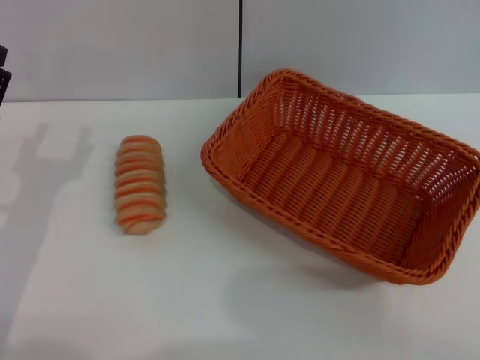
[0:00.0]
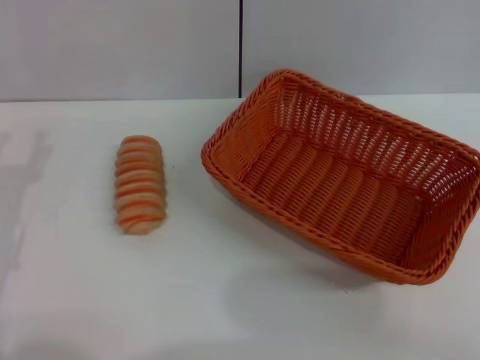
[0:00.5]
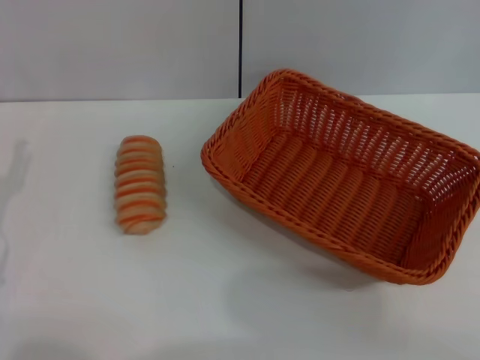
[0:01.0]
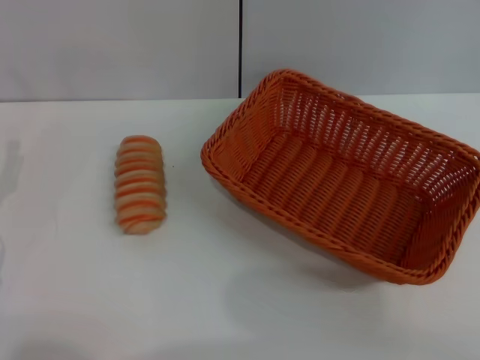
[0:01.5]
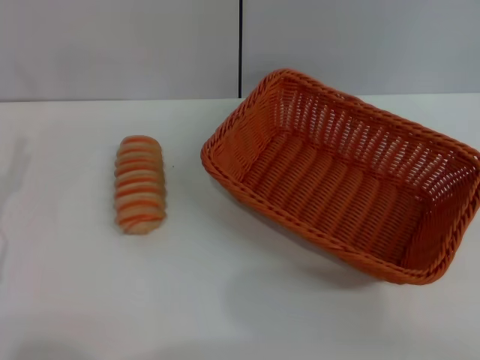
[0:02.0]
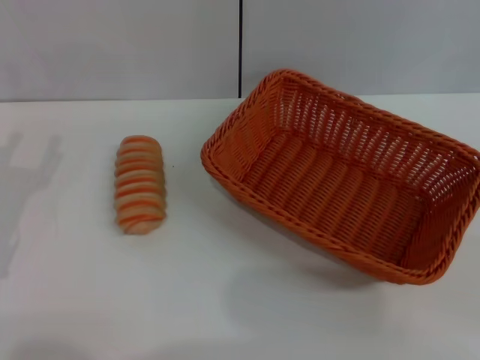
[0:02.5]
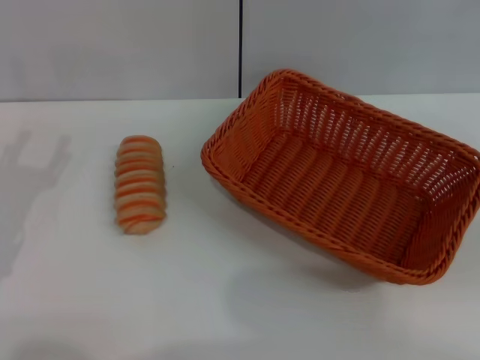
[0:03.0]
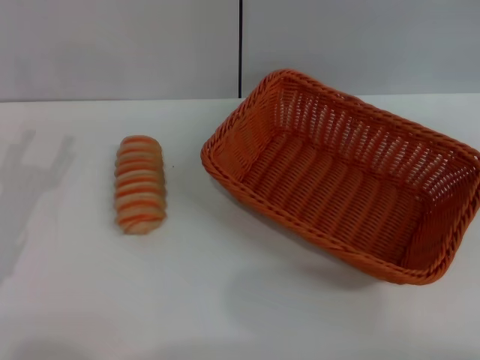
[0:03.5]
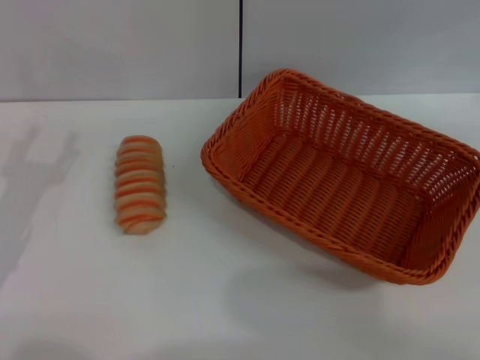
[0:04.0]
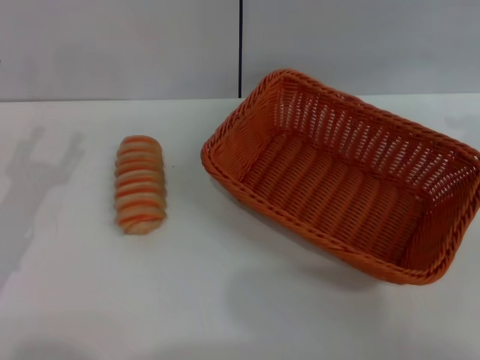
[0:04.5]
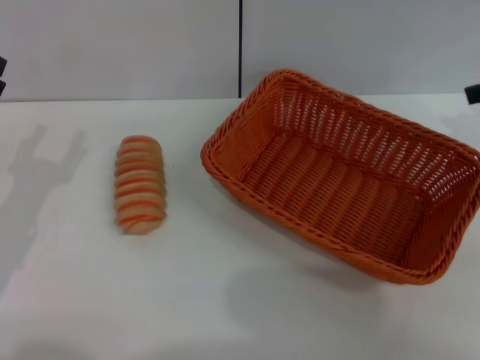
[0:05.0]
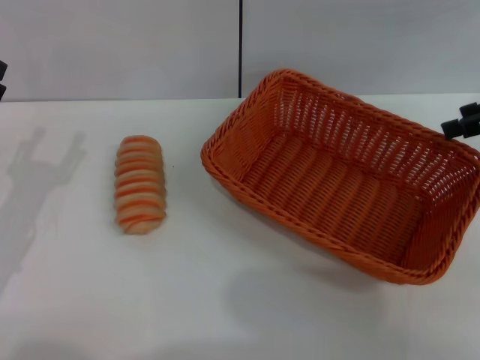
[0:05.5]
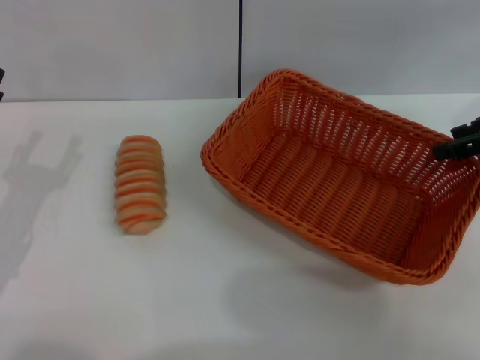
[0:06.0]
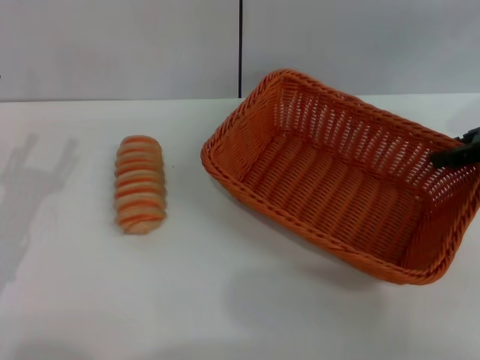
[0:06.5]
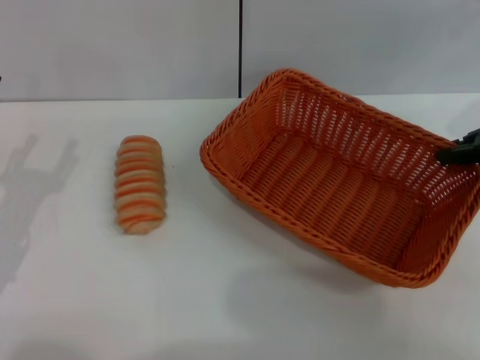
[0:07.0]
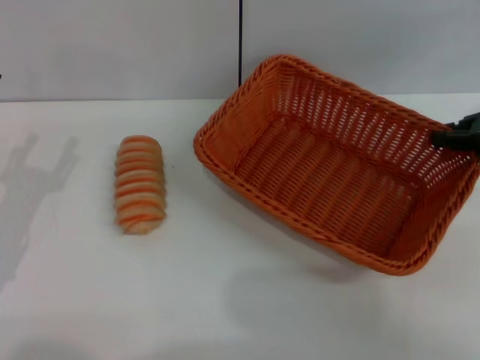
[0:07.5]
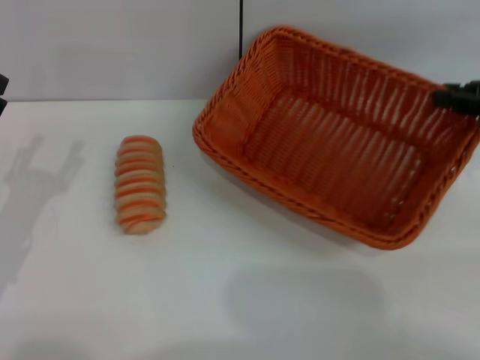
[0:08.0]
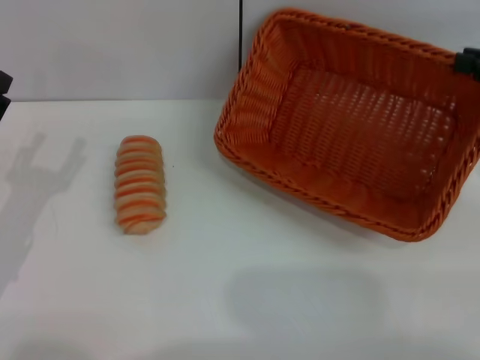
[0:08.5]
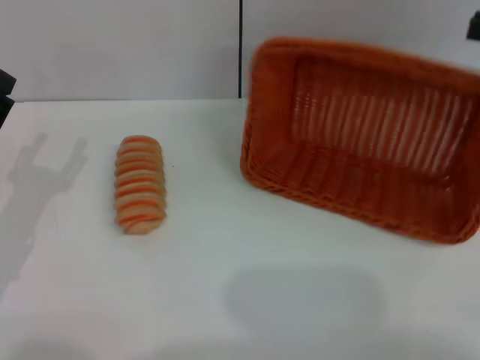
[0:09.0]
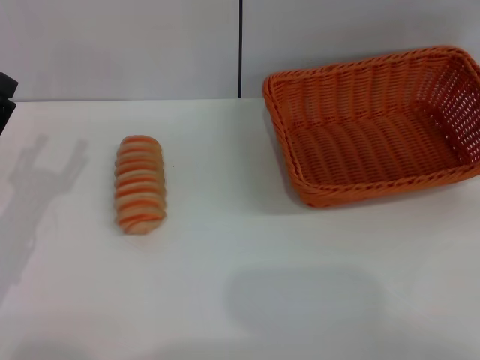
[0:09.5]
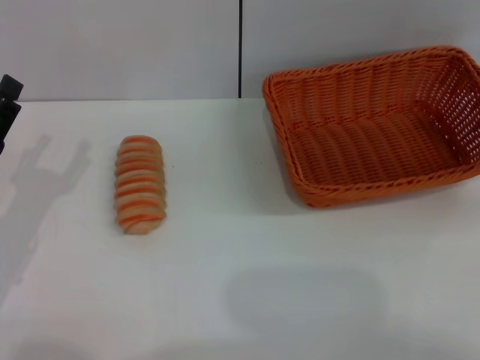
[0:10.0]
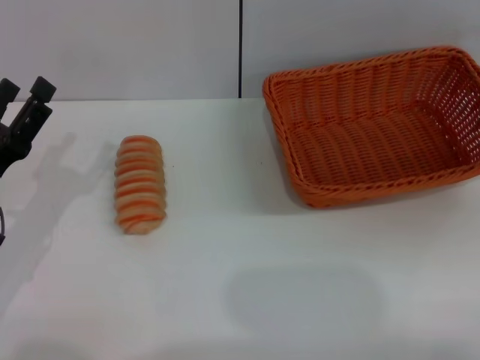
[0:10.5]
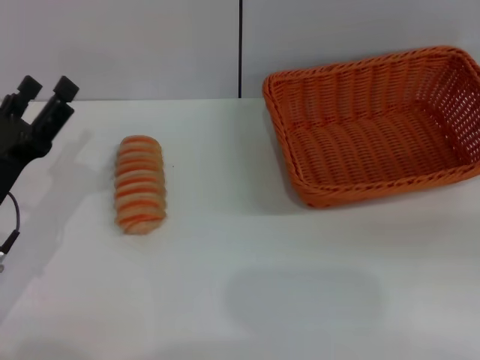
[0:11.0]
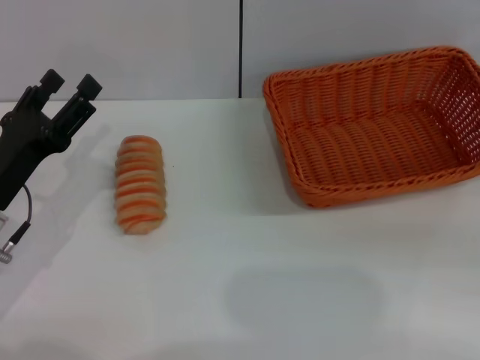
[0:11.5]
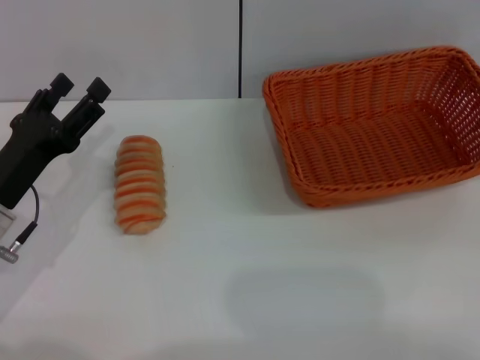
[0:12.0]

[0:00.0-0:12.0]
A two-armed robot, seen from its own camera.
Step, 0:00.0 to 0:08.0: Pick up the light basket with the right gripper.
0:04.0 to 0:06.0: The right gripper heads downward, to the left and forward, covering about 15 cm.
0:06.0 to 0:08.0: The right gripper closes up.
0:08.0 to 0:10.0: The right gripper goes approximately 5 cm upward.

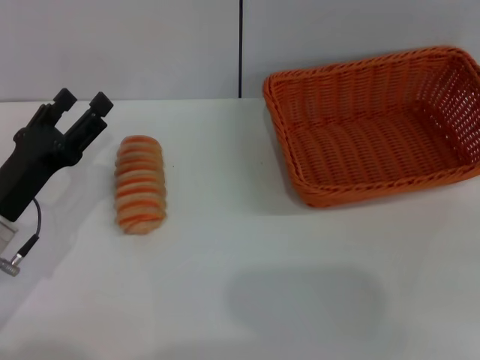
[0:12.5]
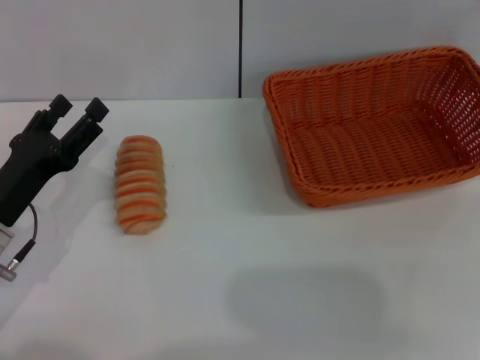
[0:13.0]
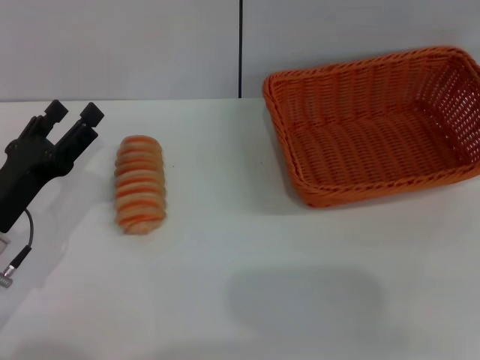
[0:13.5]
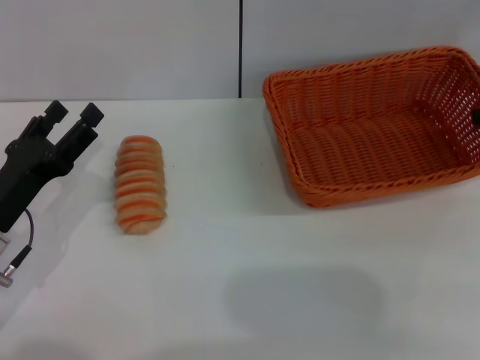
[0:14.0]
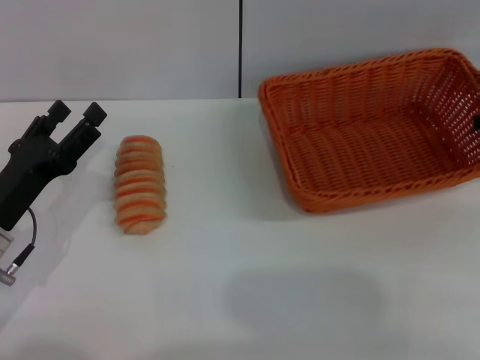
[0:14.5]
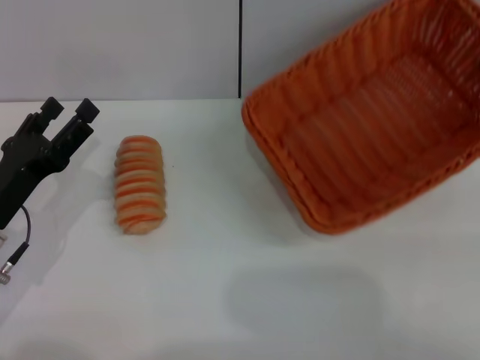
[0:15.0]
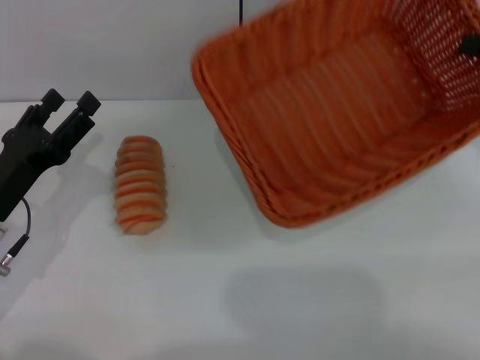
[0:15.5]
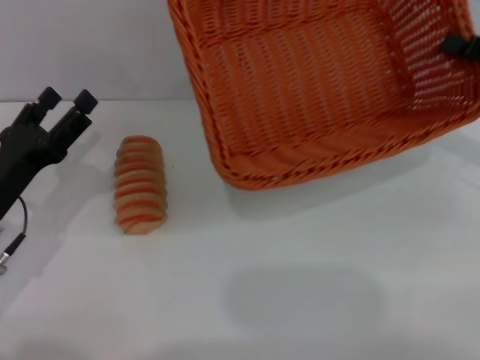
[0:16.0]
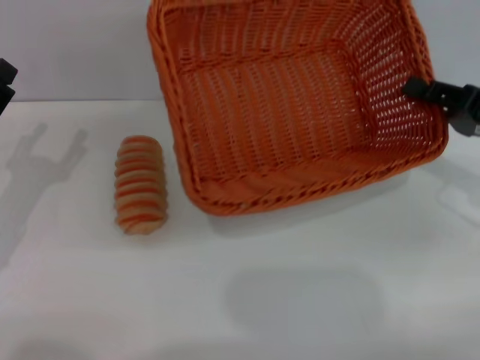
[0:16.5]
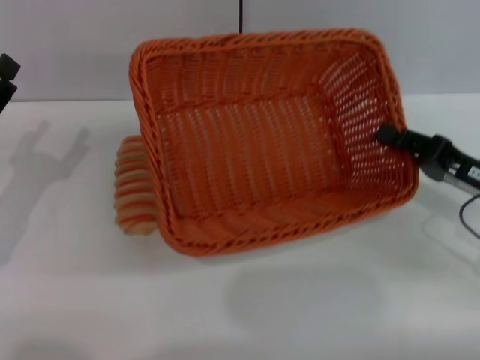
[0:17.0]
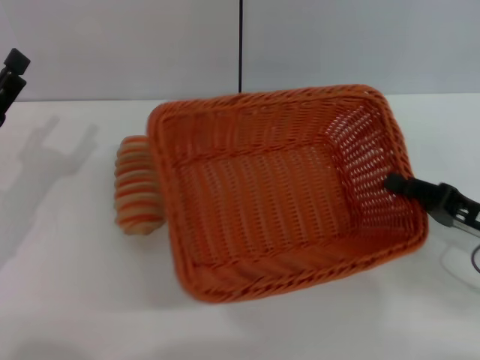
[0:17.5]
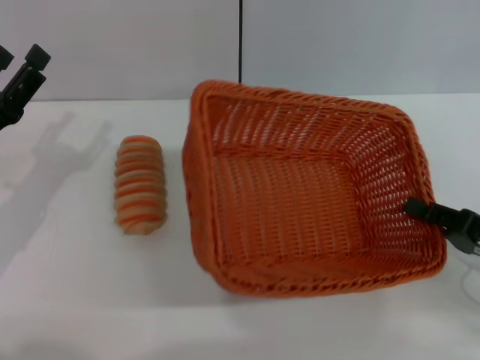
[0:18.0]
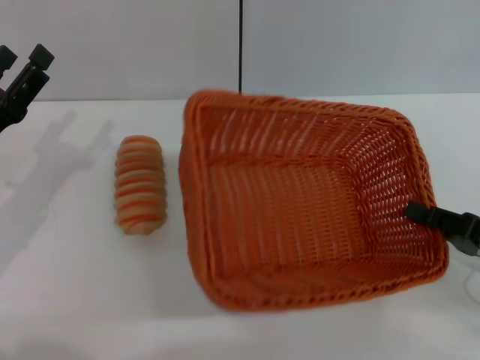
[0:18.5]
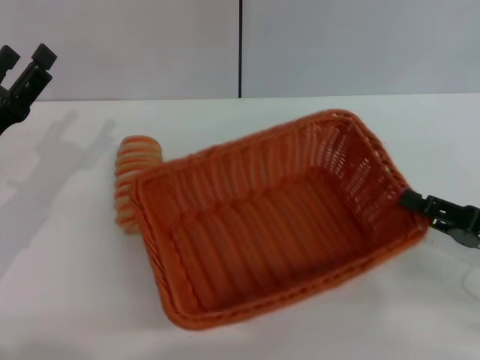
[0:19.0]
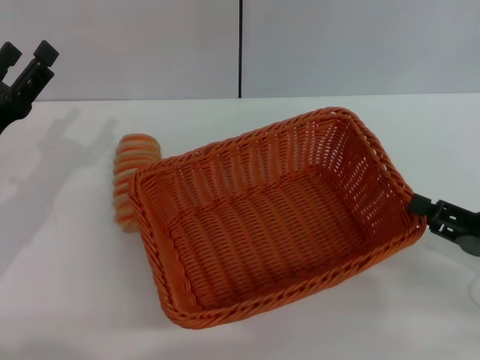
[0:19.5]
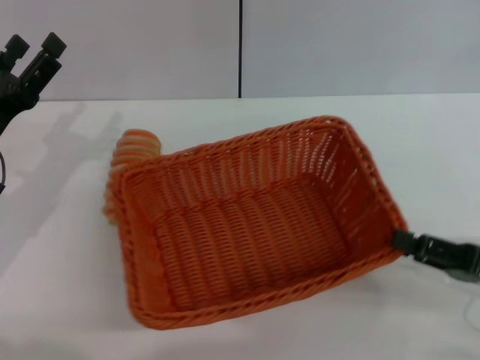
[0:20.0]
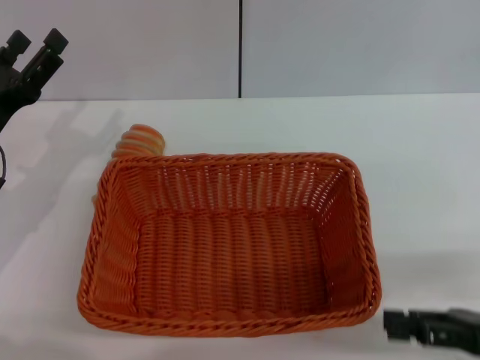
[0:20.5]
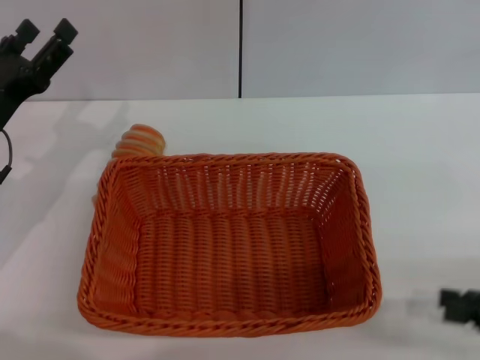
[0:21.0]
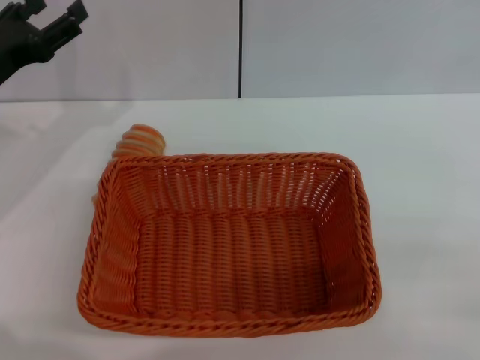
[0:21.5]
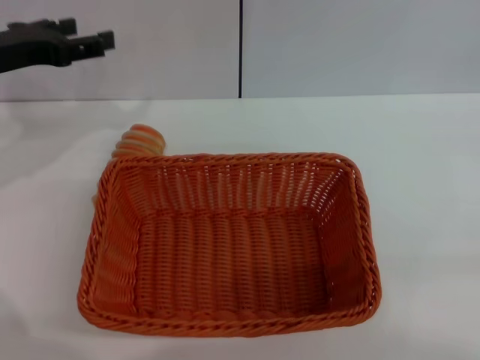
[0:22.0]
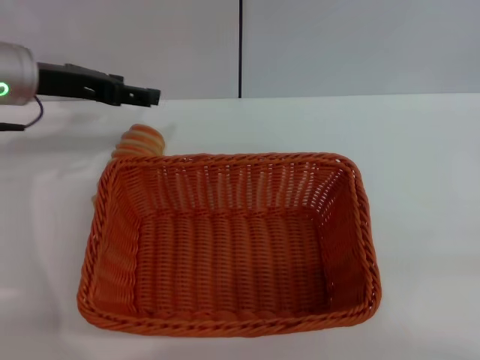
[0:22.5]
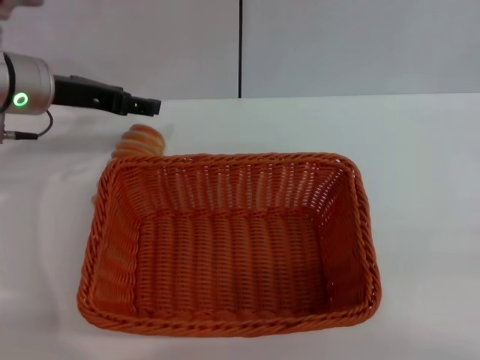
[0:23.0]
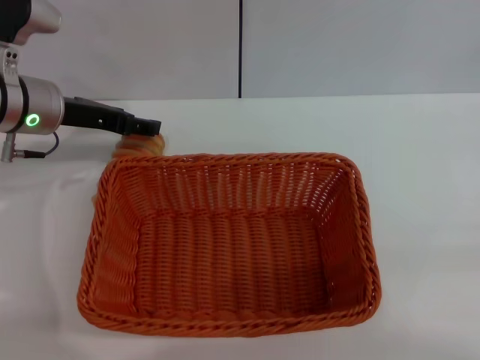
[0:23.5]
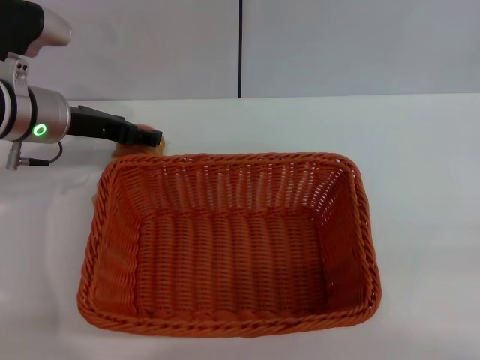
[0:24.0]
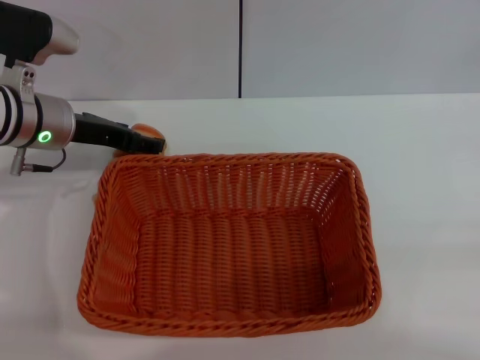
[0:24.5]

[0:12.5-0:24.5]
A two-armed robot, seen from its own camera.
Step, 0:12.5 to 0:20.5: Place the light basket in the center of view with the right gripper.
0:12.5 to 0:14.5: The right gripper goes roughly 10 cm downward, and closes.
0:14.5 to 0:16.5: The right gripper is displaced backward, to the left and downward by roughly 10 cm.
0:16.5 to 0:18.5: The right gripper moves backward and downward, roughly 10 cm.
0:18.5 to 0:20.5: The right gripper opens its fingers.
0:20.5 to 0:22.5: The right gripper moves to the right and backward, some 15 cm. Meanwhile the left gripper heads forward and upward, covering approximately 15 cm.
0:22.5 to 0:24.5: The left gripper heads downward, covering approximately 5 cm.

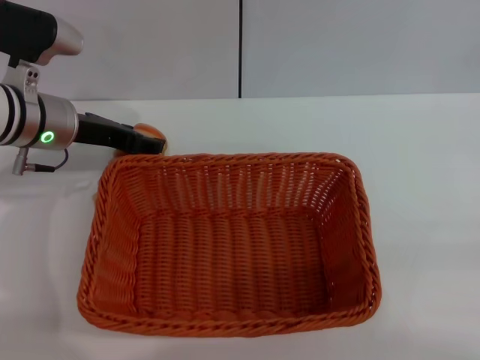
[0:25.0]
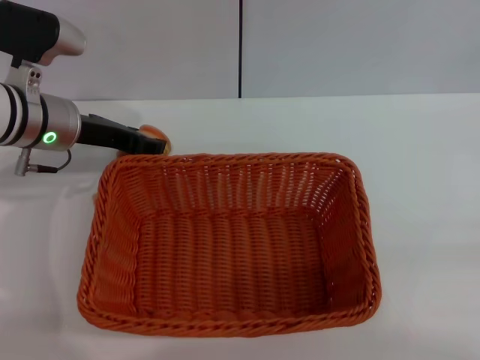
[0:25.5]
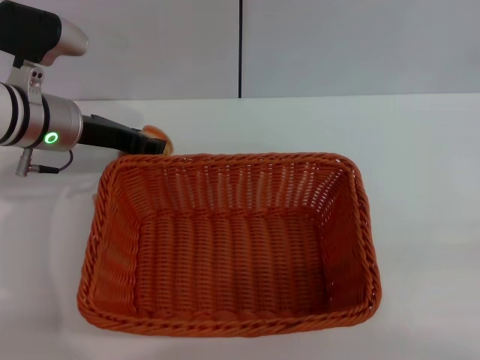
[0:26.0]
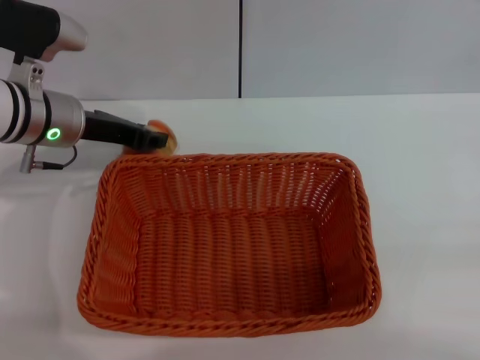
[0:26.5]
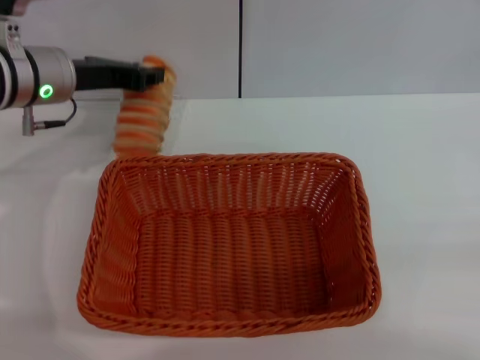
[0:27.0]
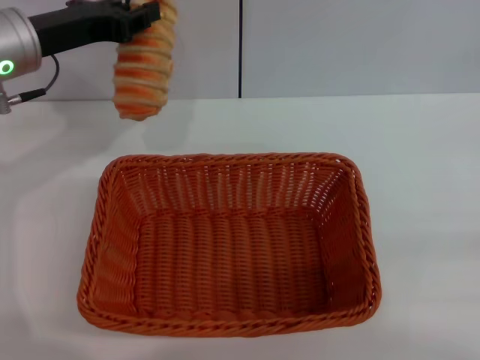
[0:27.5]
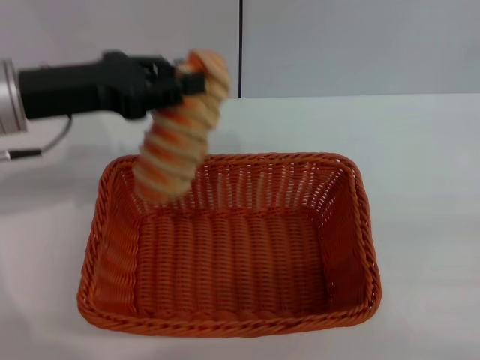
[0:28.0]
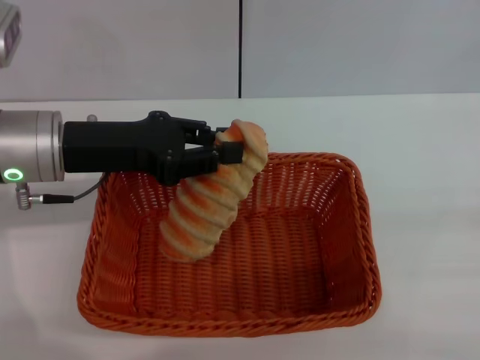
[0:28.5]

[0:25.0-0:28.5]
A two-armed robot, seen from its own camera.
Step, 0:25.0 to 0:27.0: Pick up the long bread with the left gripper.
0:25.0 to 0:27.0: The left gripper closes up.
0:27.0 to 0:28.5: The right gripper shifts by roughly 5 cm; the left gripper heads backward, covering approximately 10 cm.
